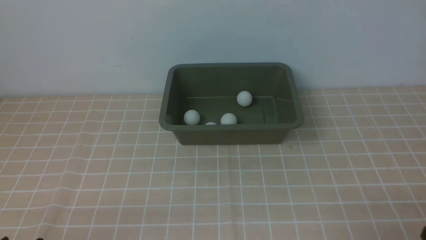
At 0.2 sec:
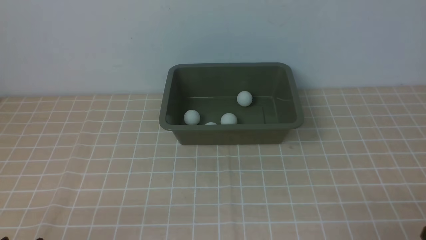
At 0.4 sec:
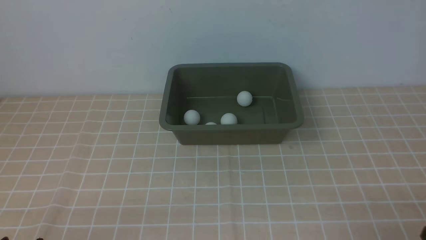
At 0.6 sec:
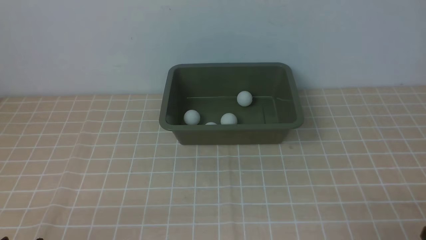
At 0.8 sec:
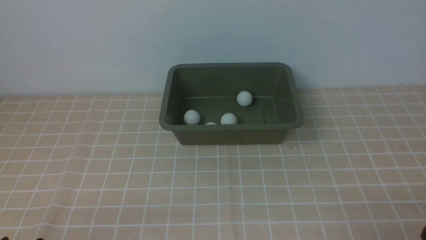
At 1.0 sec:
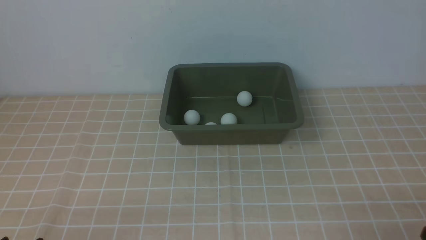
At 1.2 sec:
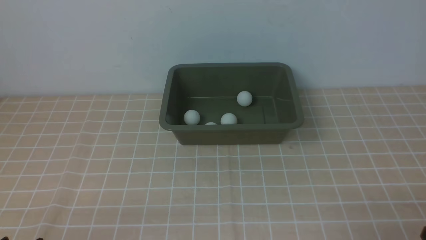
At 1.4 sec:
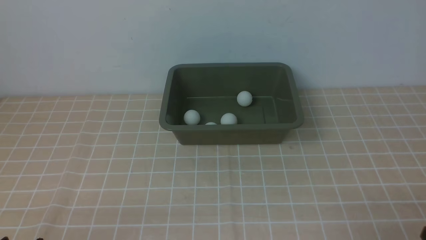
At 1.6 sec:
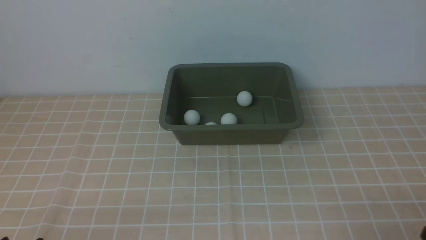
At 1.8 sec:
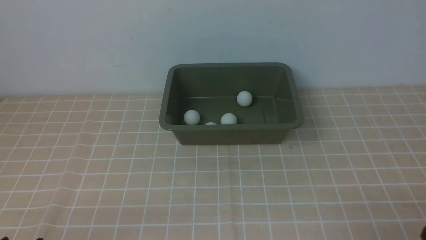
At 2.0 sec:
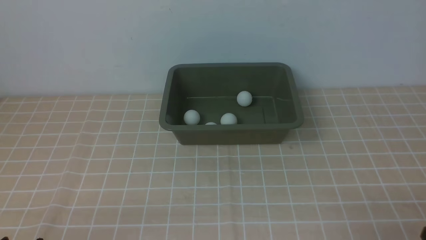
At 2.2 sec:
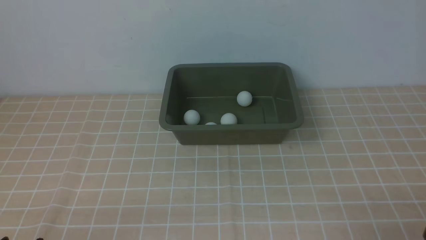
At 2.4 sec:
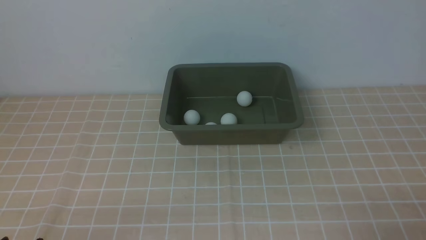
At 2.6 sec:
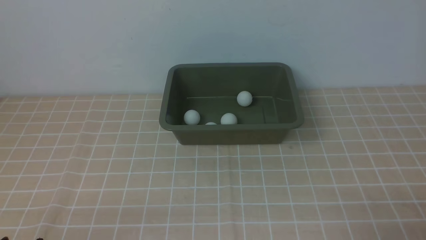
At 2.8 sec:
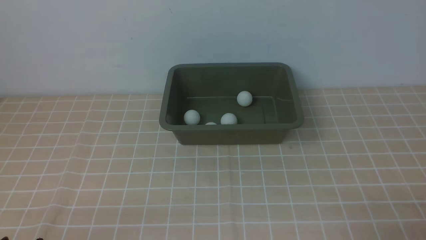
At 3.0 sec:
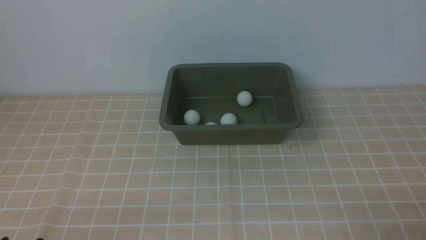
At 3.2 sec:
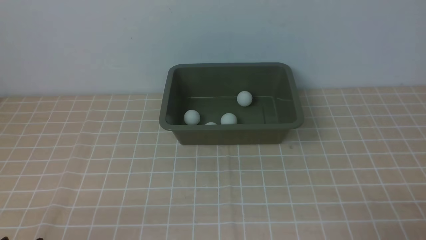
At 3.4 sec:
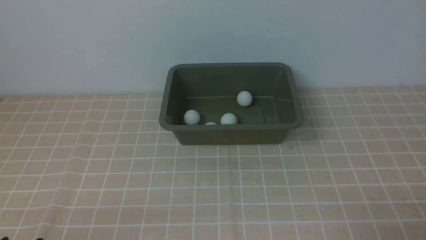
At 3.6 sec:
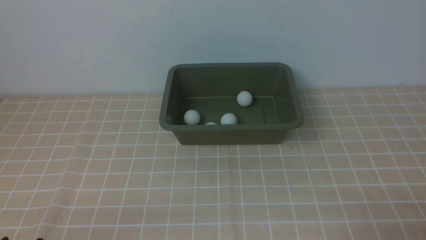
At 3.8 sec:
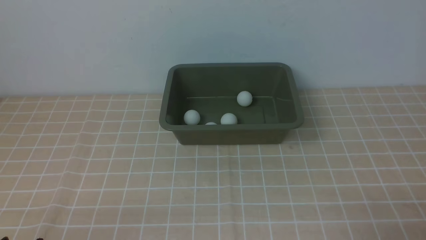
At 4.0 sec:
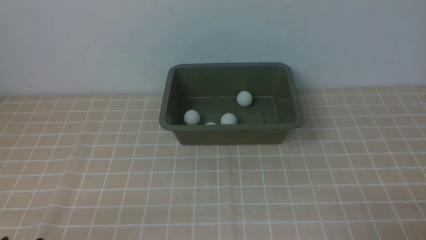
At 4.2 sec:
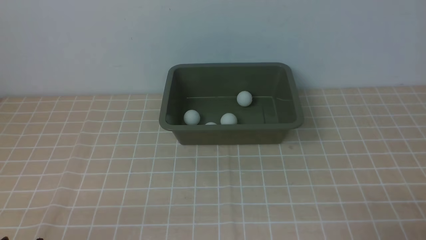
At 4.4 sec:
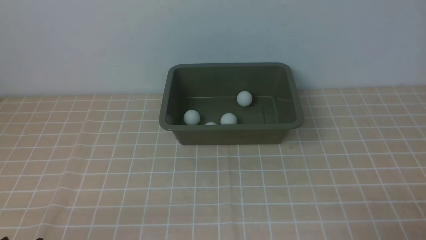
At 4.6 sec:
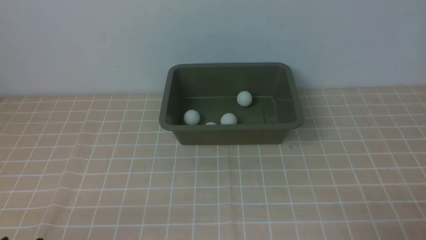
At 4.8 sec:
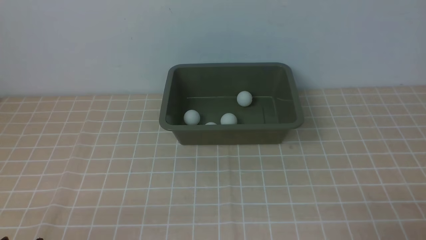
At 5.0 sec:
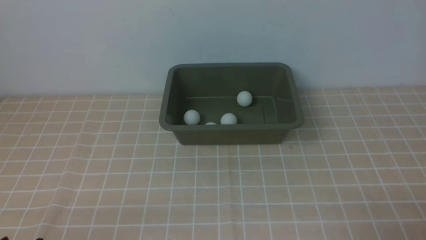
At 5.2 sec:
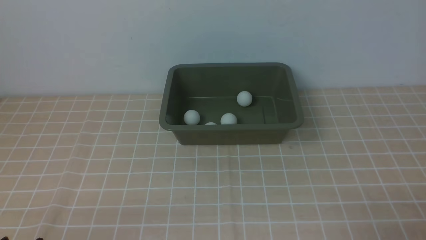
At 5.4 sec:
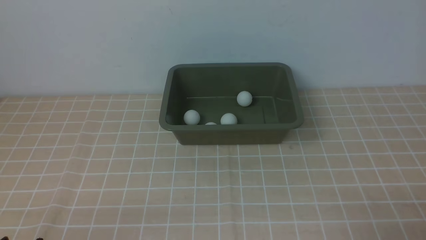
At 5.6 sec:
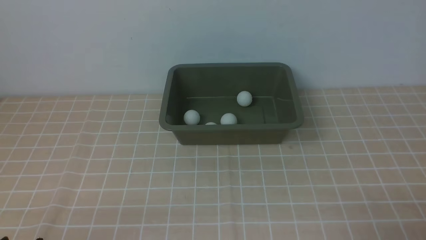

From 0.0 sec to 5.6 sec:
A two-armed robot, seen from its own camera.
From 0.0 sec to 1.4 sec: Both grippers stay put.
From 2.8 sec to 5.6 sec: Neither gripper changes place.
